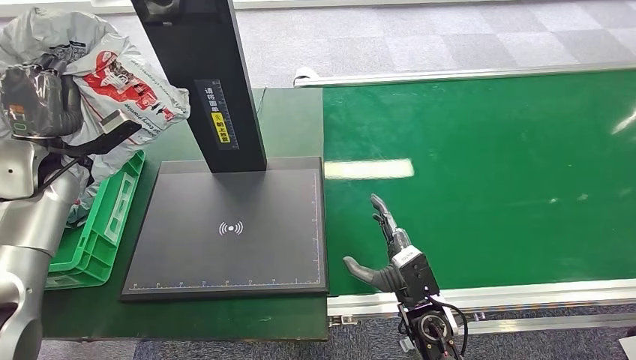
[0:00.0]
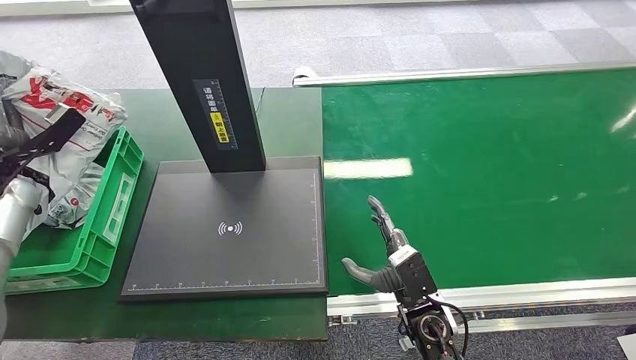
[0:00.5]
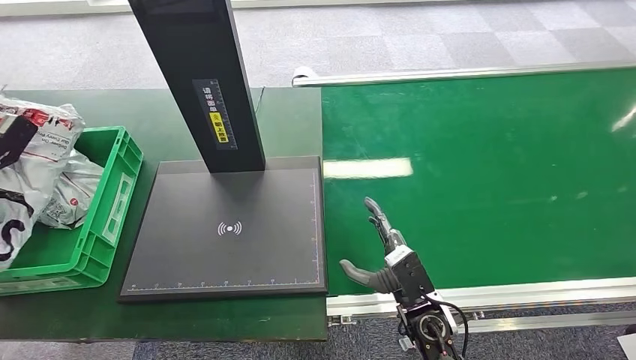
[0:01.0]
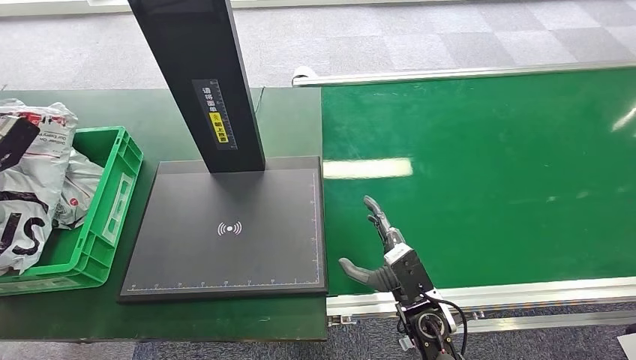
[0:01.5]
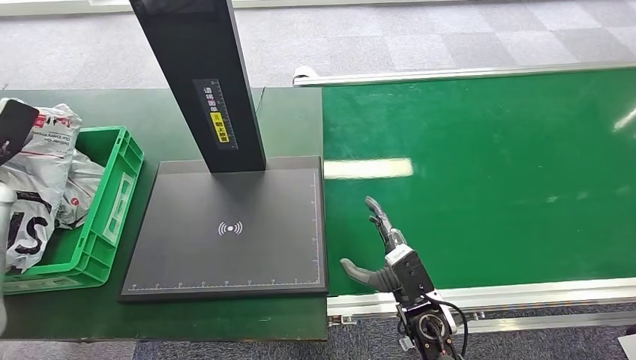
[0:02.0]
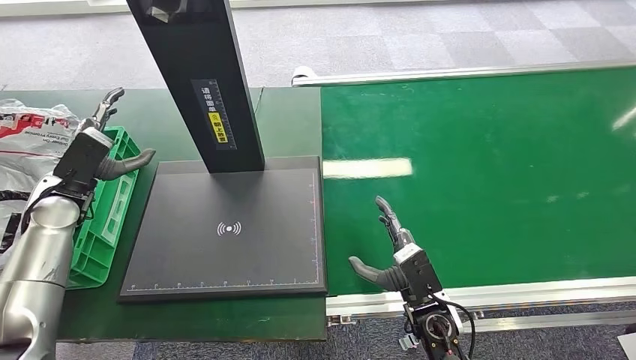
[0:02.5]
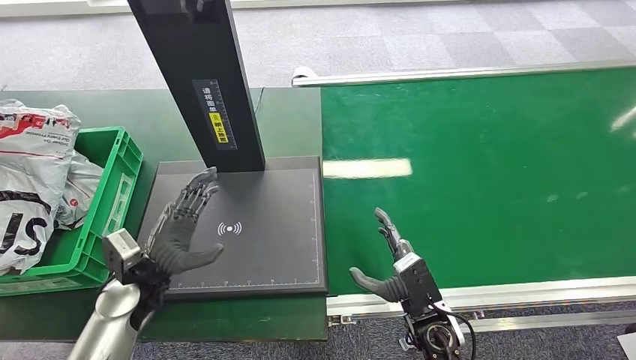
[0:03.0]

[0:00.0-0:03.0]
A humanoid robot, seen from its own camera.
Step, 0:00.0 to 0:03.0: Place the package into the parcel locker.
0:00.0 to 0:01.5: The left hand travels to the left by about 15 cm.
0:01.5 to 0:03.0: The left hand heads to the right, covering approximately 30 cm.

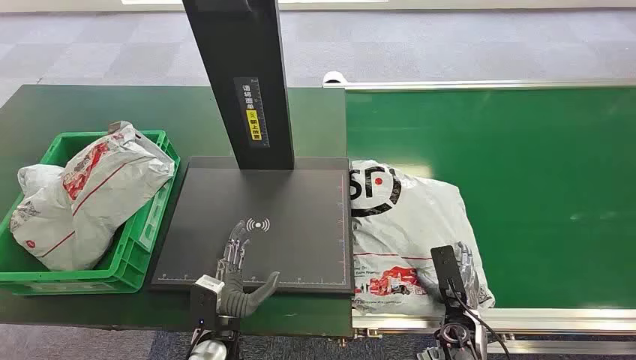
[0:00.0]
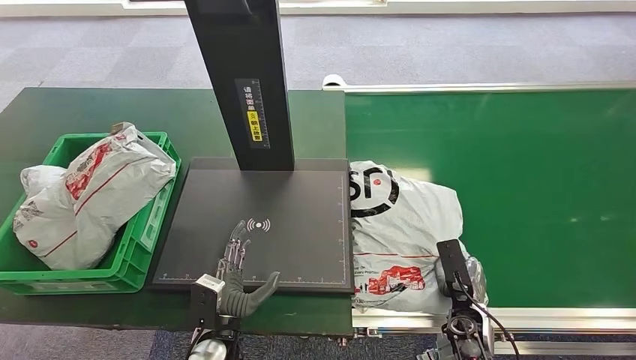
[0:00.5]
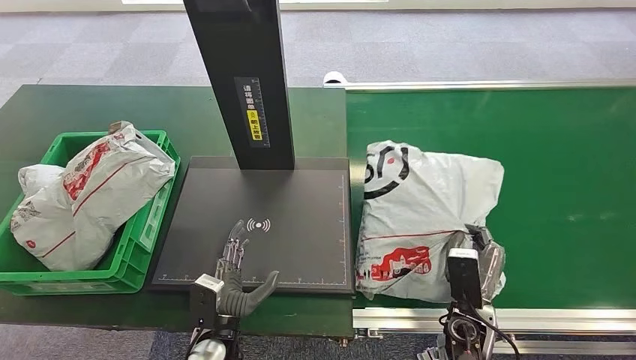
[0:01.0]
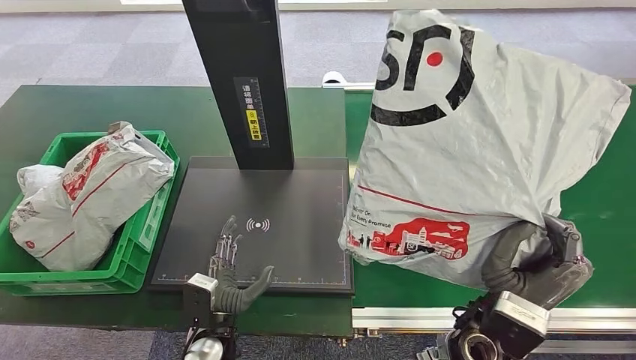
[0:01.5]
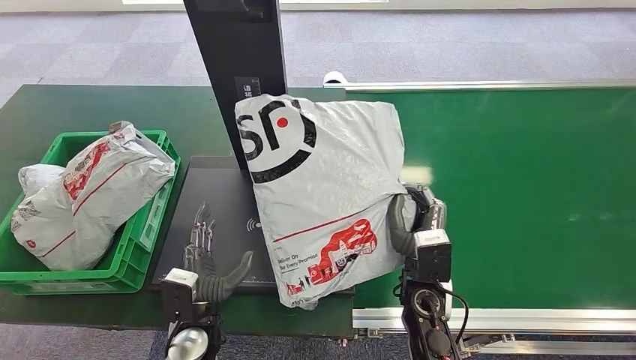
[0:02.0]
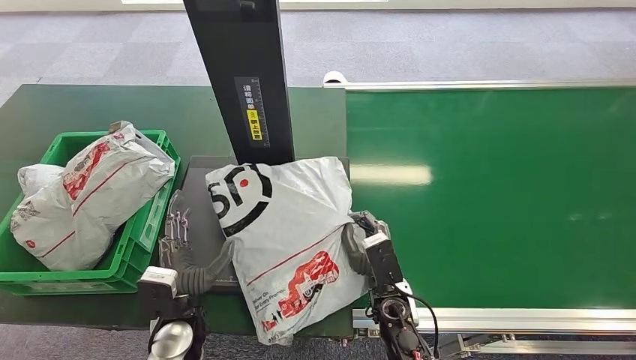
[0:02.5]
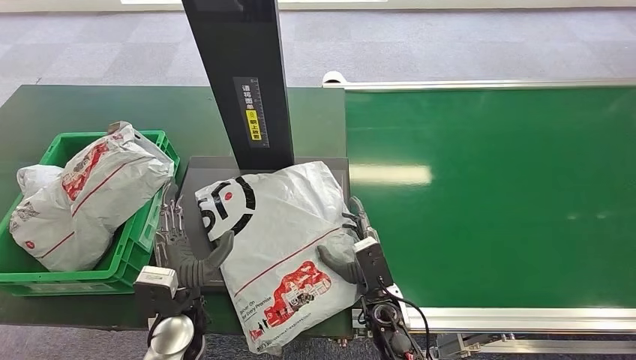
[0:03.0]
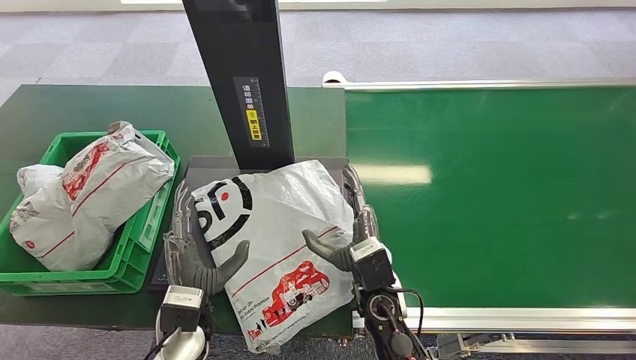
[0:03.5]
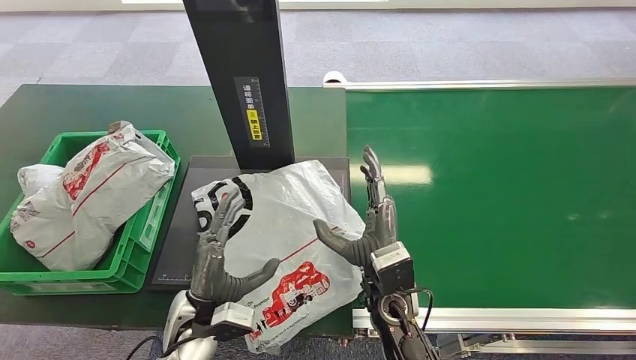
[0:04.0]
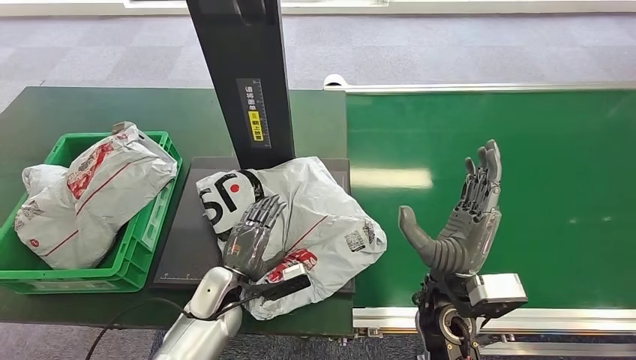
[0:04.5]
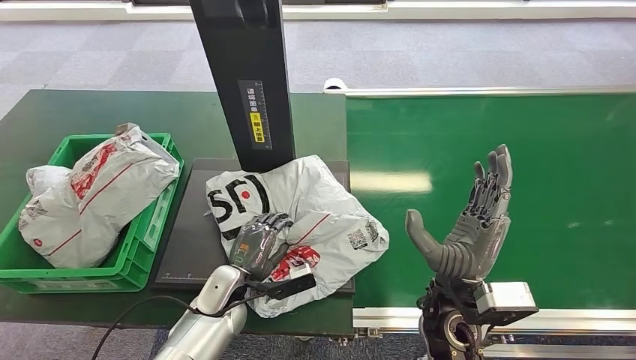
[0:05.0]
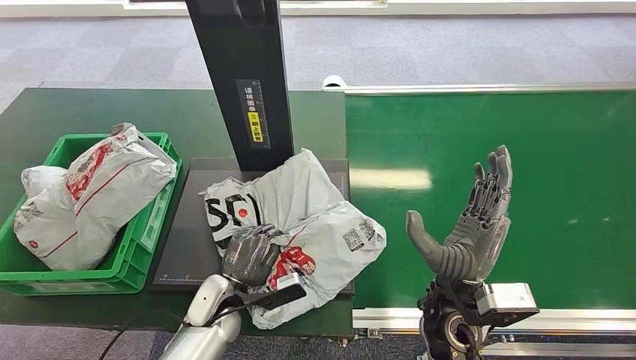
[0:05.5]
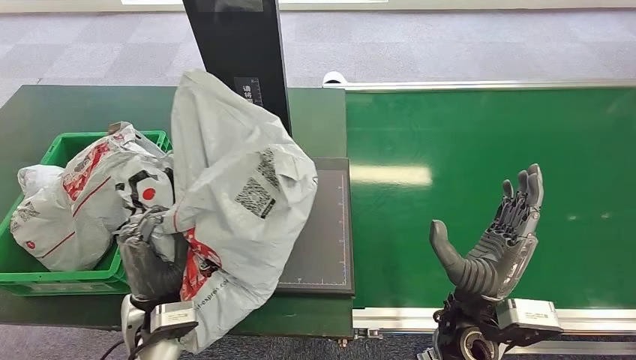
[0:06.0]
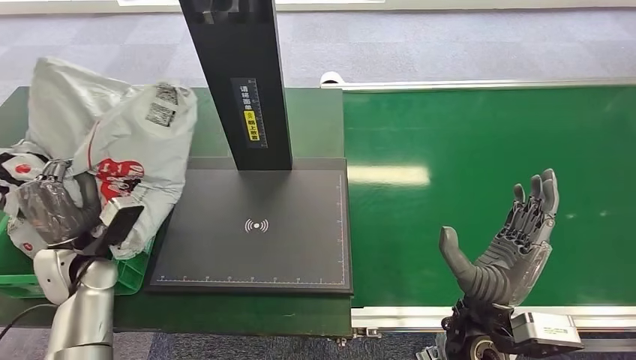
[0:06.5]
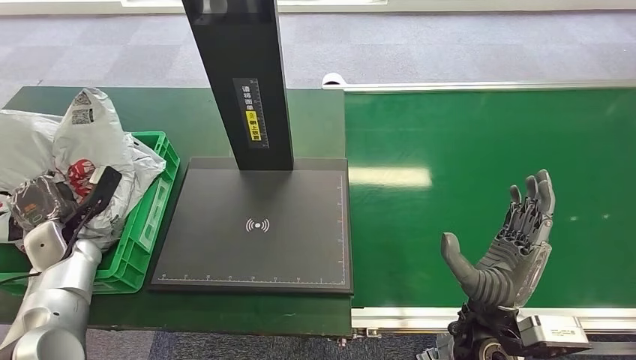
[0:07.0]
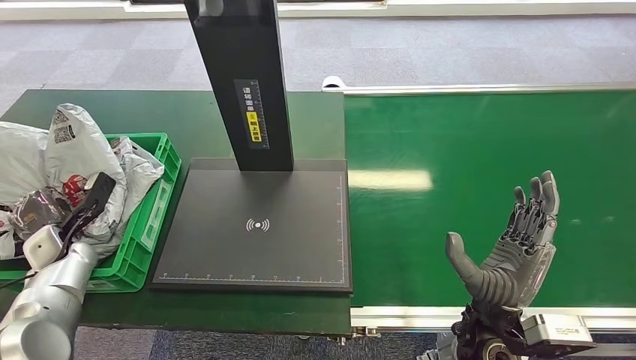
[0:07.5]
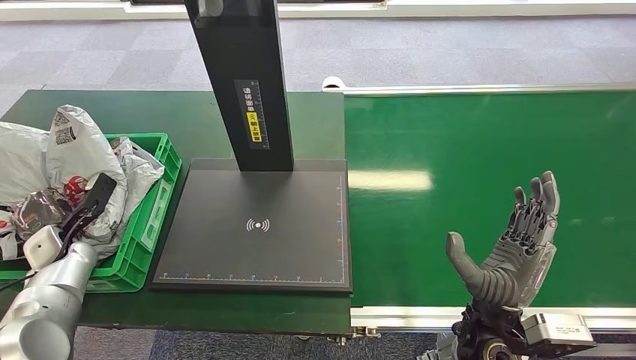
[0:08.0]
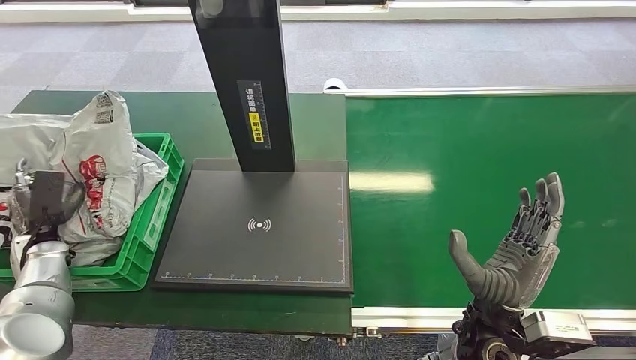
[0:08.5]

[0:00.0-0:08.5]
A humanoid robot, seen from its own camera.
Step, 0:00.0 to 0:01.0: Pick up the package from the conveyor belt.
Step, 0:01.5 to 0:03.0: Place the package onto the inbound machine.
Step, 0:03.5 to 0:05.5: Pick up the package from the inbound machine.
Step, 0:06.5 to 0:08.5: Place the package into the parcel locker.
0:02.0 to 0:04.0: The right hand goes approximately 5 cm to the left, and goes downward and returns, roughly 10 cm each way.
